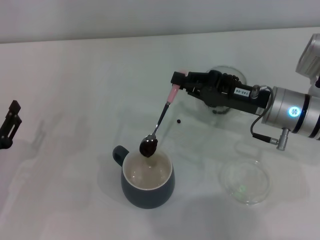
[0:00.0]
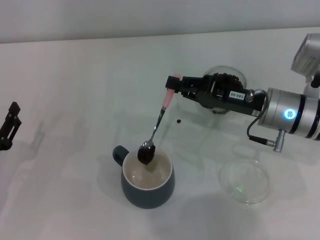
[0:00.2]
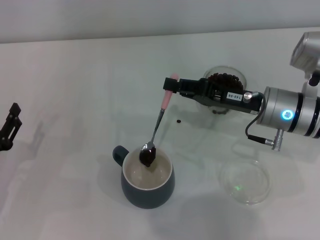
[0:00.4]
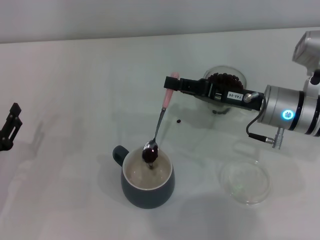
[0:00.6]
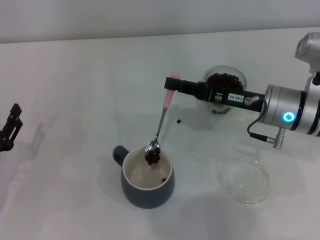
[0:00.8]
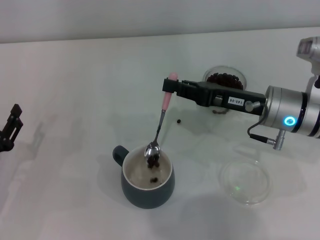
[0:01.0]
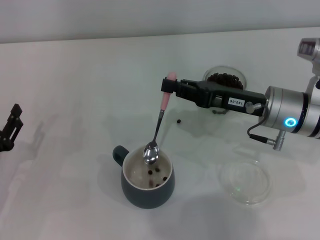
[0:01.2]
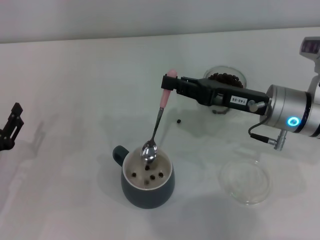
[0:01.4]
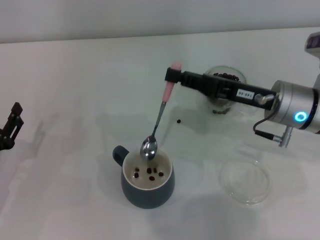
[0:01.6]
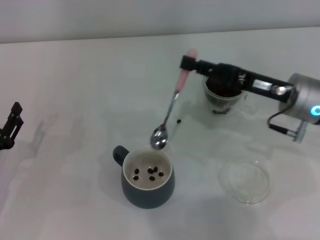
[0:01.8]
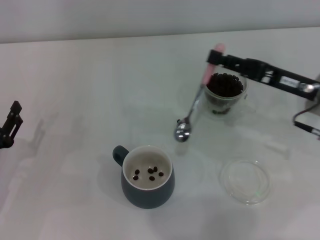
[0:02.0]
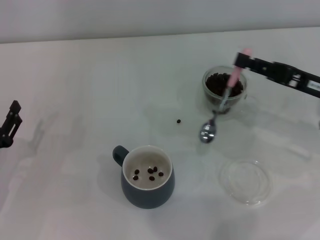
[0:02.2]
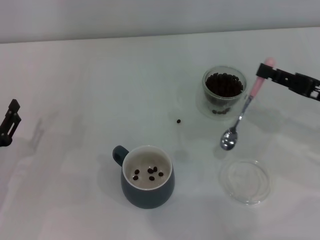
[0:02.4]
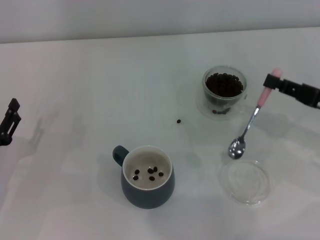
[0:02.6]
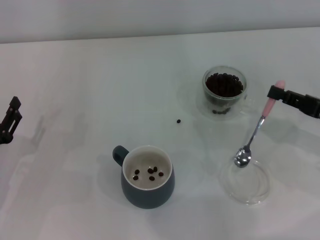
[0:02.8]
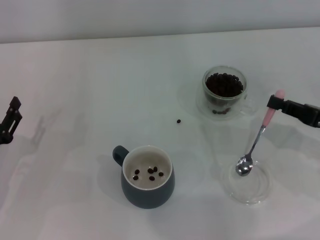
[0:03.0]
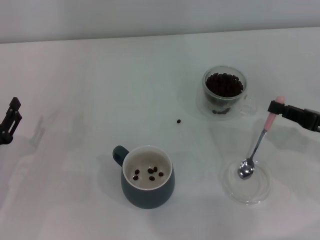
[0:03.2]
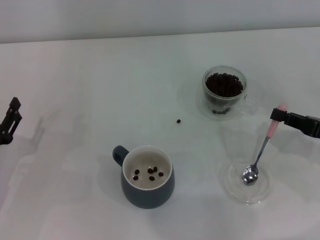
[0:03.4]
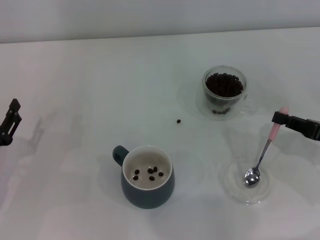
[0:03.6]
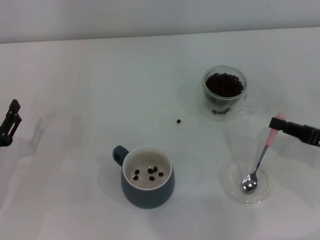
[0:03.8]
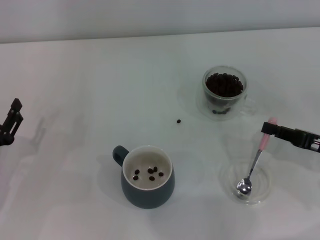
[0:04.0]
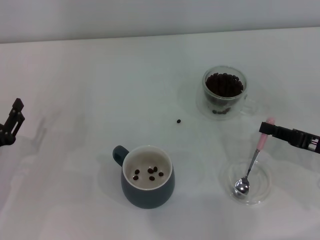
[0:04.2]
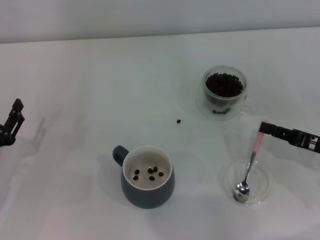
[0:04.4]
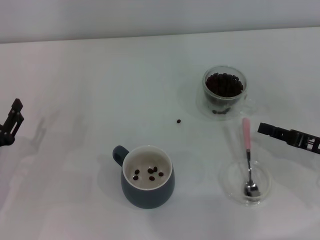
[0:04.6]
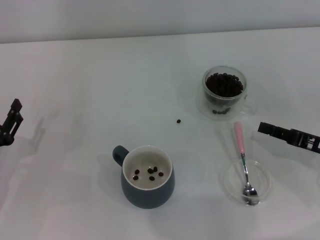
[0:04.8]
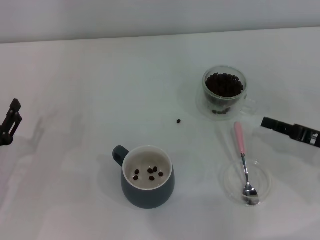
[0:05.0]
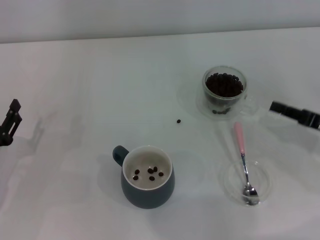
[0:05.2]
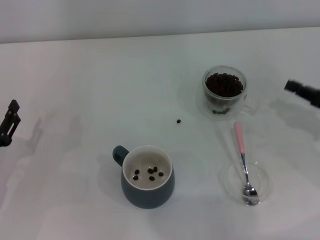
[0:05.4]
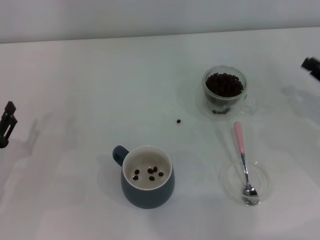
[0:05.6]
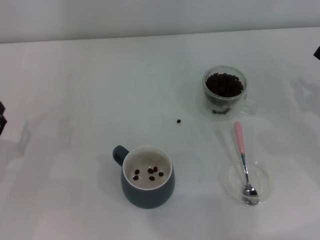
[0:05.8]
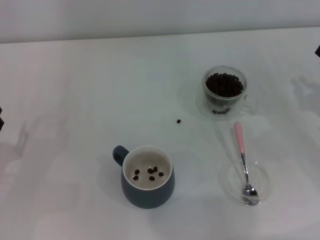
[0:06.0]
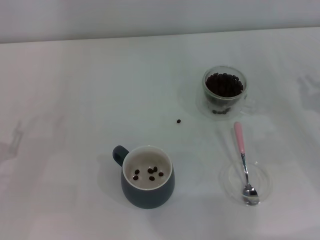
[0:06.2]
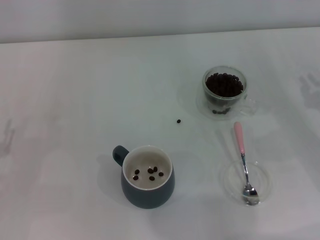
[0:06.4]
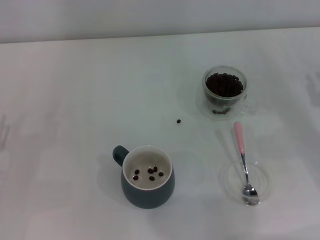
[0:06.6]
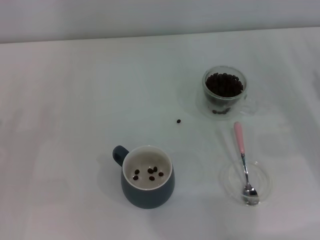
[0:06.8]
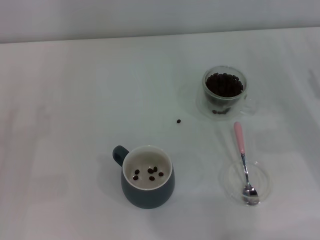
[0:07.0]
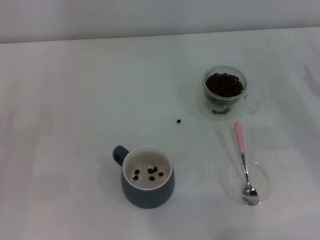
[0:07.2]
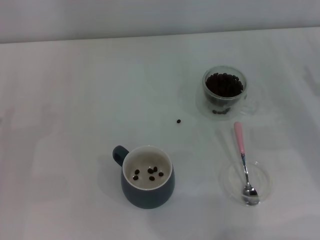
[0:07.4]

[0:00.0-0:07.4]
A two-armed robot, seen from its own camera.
Task of the whole recording: Use a pink spoon to take out the coffee beans from the glass and pour them into the gray cup.
Step, 0:01.8 to 0:04.8: Place the spoon back in its original place with the right gripper.
0:01.4 to 0:03.0: The right gripper heads to the right and backward, covering about 15 cm.
0:03.0 to 0:04.4: There are only small adjustments of the grippers.
